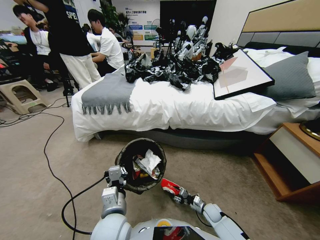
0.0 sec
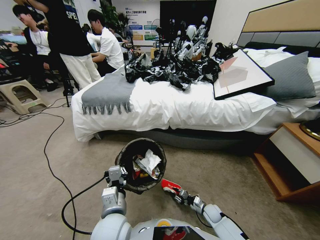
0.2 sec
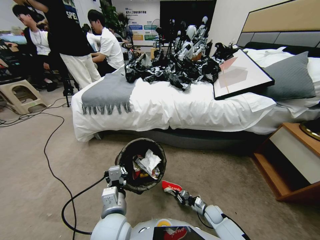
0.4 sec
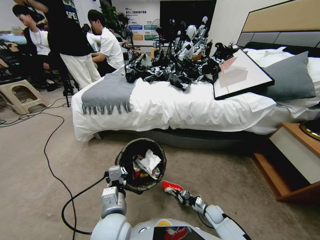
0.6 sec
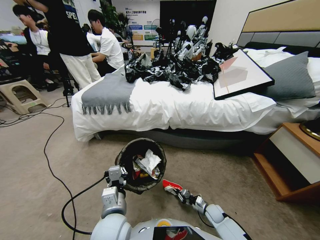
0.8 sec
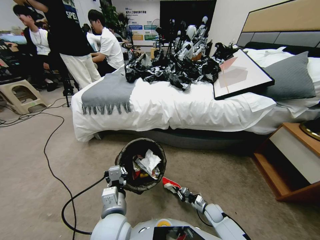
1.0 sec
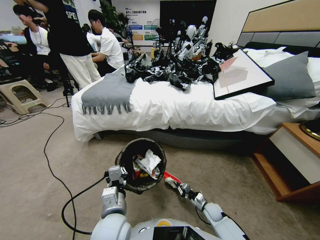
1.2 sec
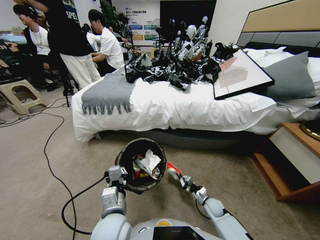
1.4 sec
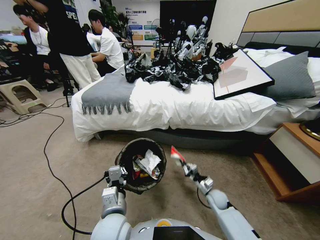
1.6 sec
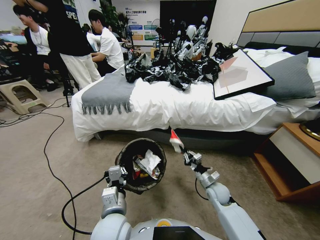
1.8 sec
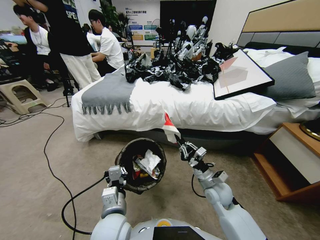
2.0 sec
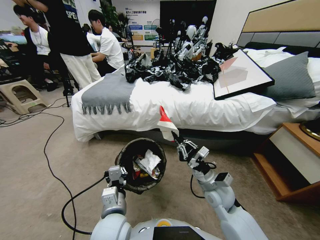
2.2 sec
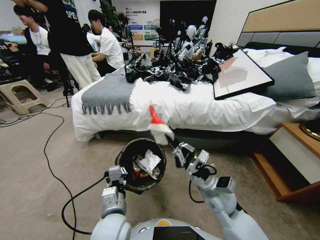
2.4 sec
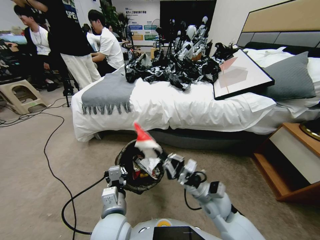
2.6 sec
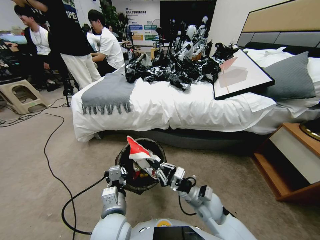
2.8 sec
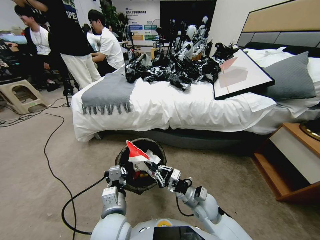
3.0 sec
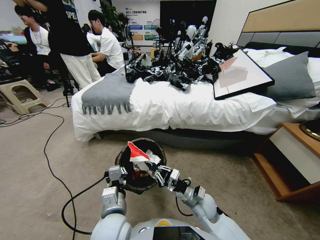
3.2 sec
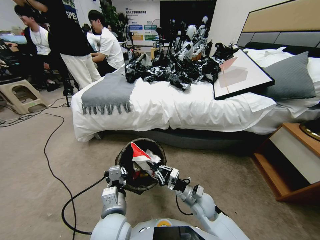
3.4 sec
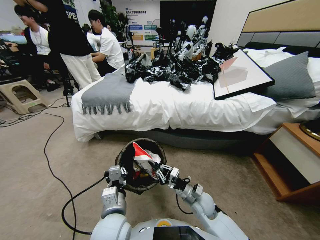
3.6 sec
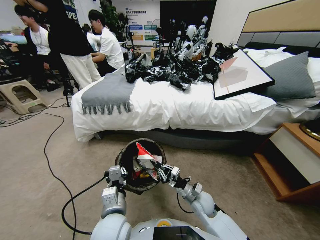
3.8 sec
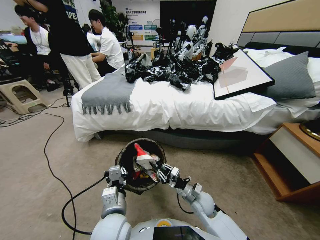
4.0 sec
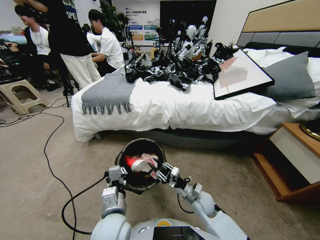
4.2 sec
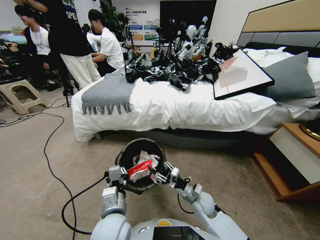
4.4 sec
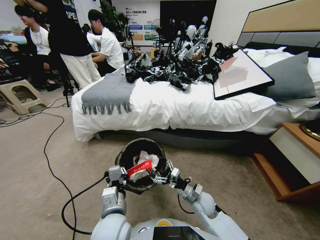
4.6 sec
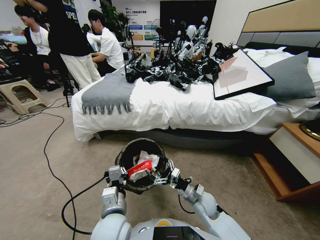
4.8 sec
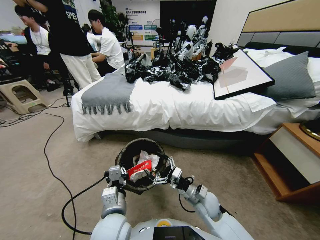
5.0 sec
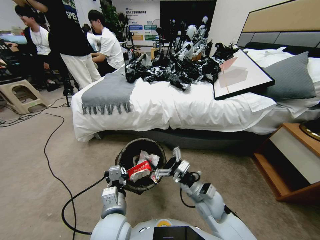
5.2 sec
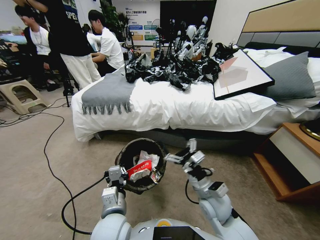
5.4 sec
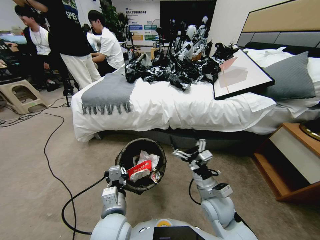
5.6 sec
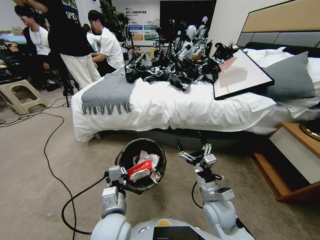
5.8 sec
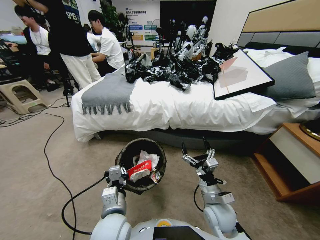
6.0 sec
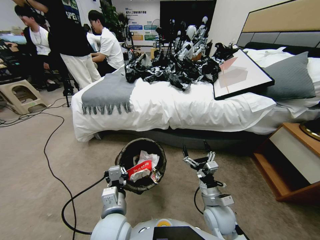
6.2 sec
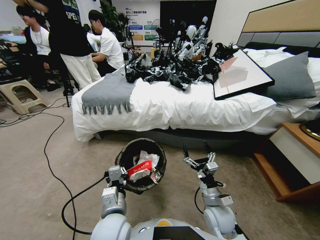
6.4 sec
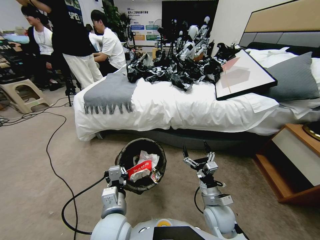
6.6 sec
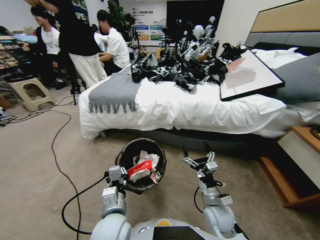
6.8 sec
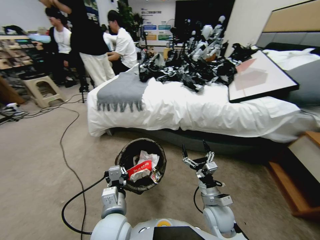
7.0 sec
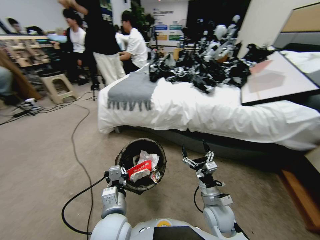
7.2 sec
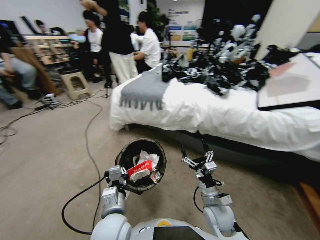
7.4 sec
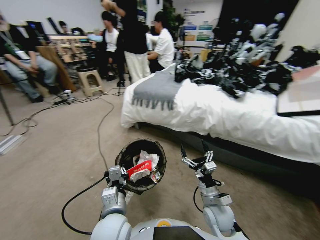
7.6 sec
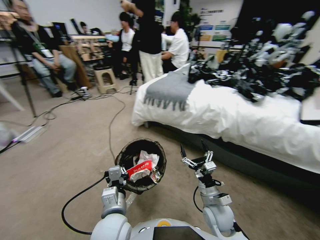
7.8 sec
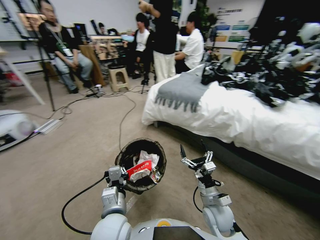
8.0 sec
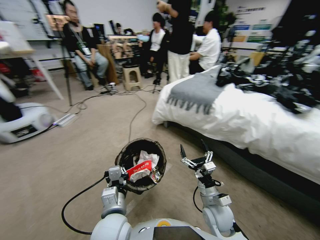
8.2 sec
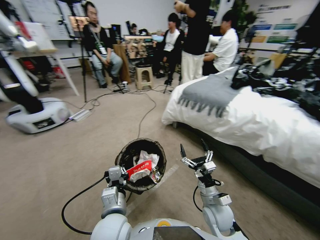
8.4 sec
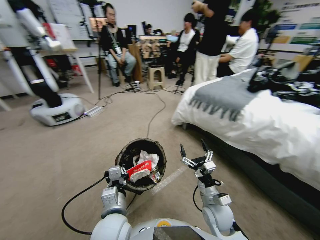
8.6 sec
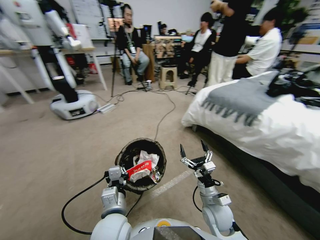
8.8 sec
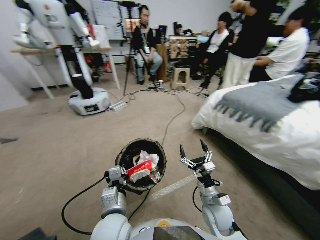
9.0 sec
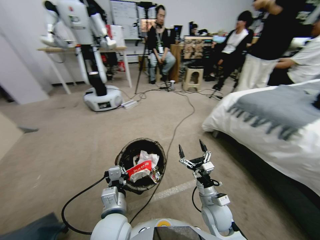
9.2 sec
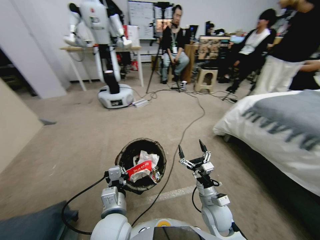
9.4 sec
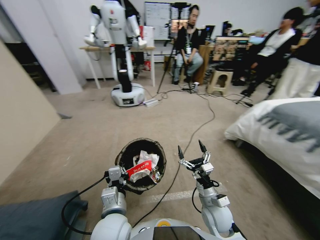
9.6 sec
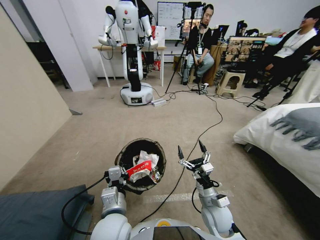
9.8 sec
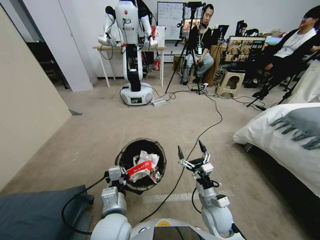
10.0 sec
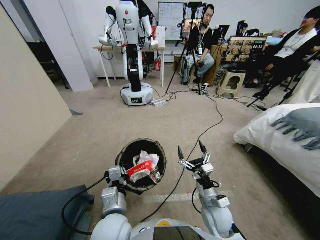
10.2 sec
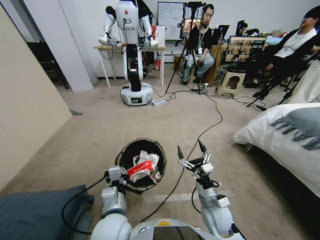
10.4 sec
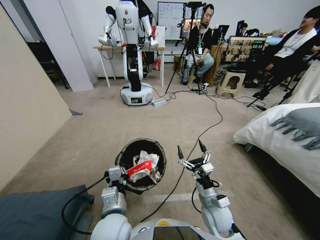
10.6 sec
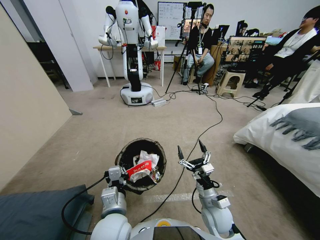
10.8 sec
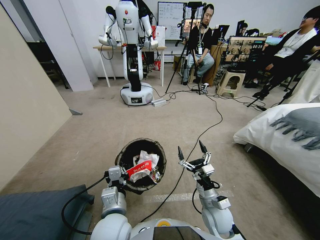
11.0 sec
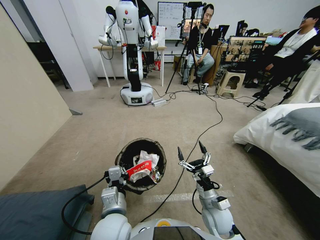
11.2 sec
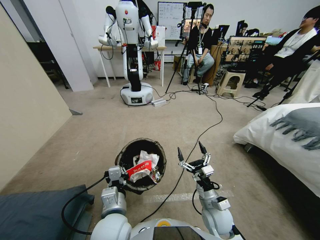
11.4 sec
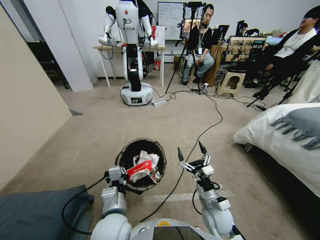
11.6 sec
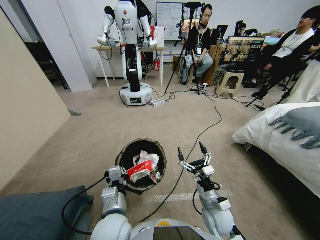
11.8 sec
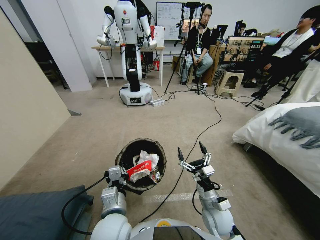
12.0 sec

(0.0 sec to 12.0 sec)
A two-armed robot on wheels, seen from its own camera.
Task of the whole recording: Pick up the trash bin, then pick up the garbage from the floor and place it into the trash bin.
0.0 sec - 1.6 sec: The right gripper travels upward by roughly 15 cm.
1.6 sec - 3.0 sec: The right gripper moves to the left, backward and upward, roughly 15 cm.
3.0 sec - 4.4 sec: The right gripper opens.
4.4 sec - 6.0 sec: The right gripper travels upward by some 10 cm.
10.4 sec - 12.0 sec: Both grippers stay put.

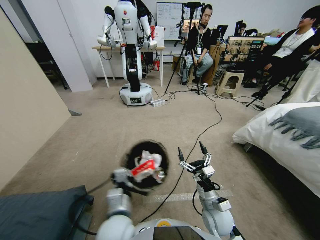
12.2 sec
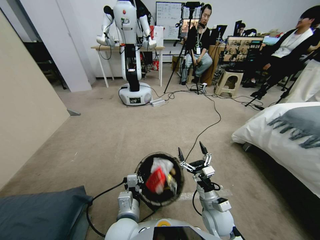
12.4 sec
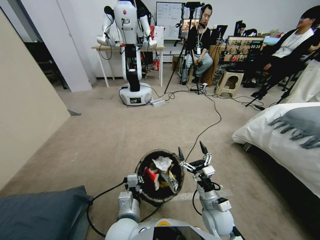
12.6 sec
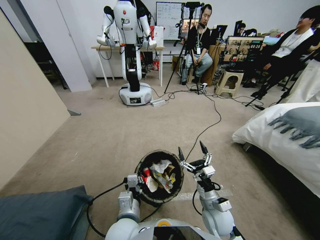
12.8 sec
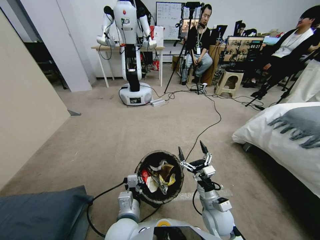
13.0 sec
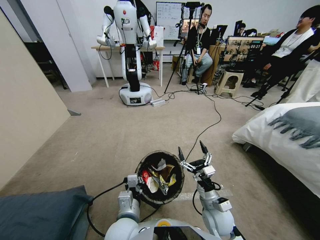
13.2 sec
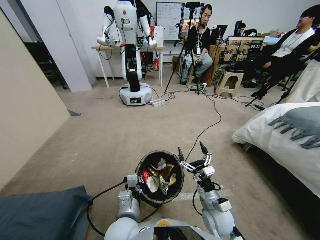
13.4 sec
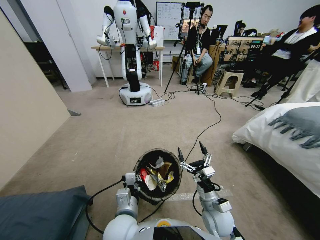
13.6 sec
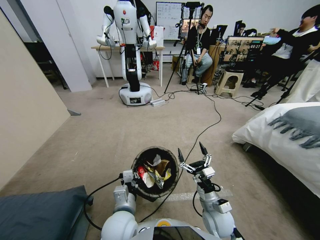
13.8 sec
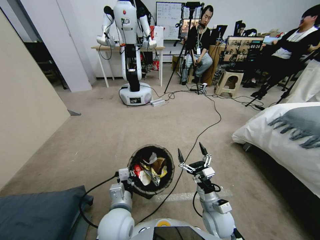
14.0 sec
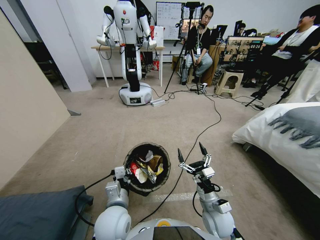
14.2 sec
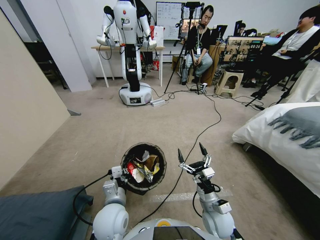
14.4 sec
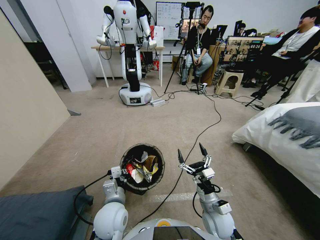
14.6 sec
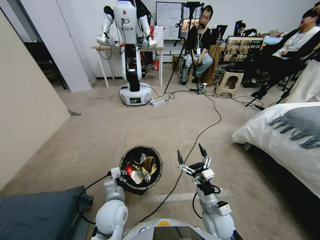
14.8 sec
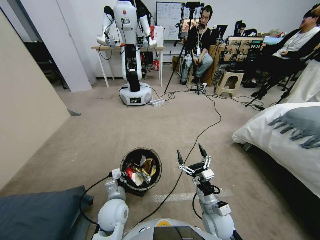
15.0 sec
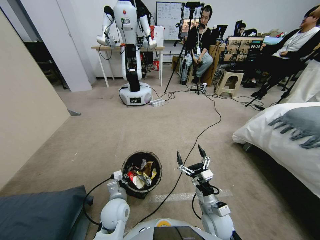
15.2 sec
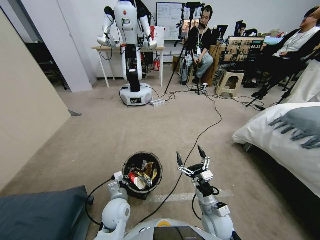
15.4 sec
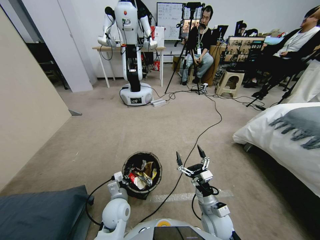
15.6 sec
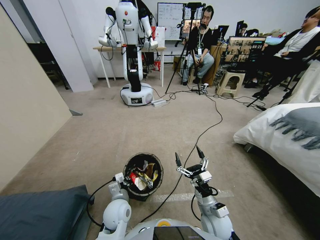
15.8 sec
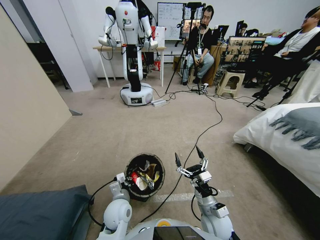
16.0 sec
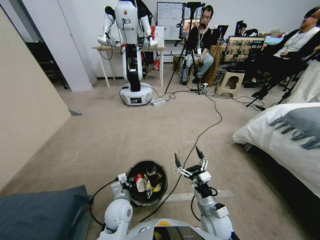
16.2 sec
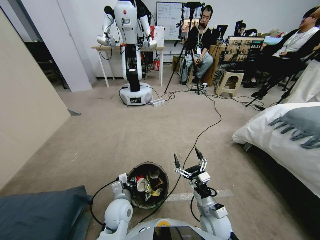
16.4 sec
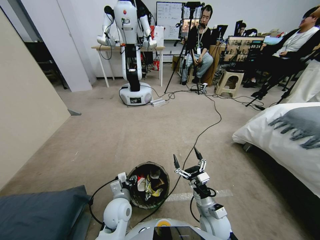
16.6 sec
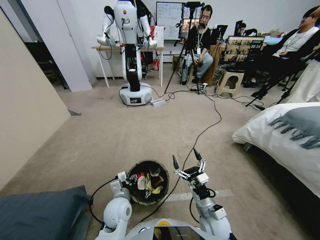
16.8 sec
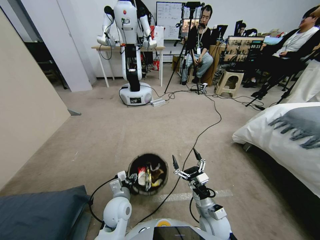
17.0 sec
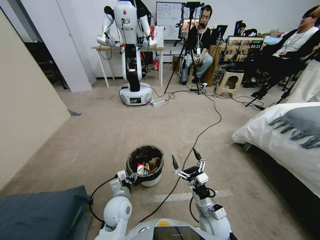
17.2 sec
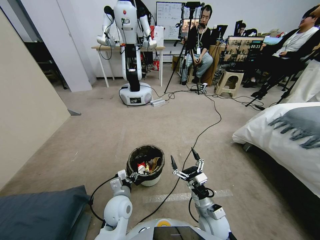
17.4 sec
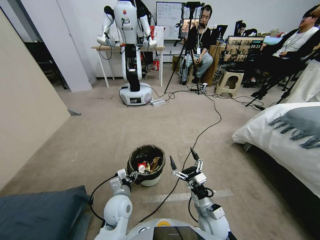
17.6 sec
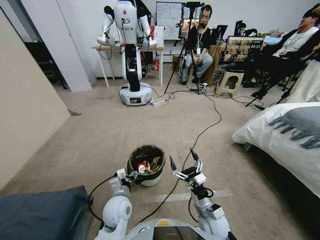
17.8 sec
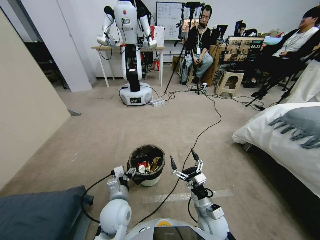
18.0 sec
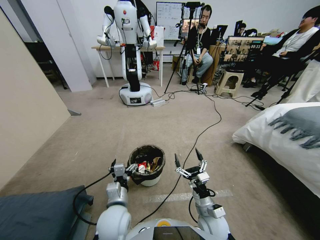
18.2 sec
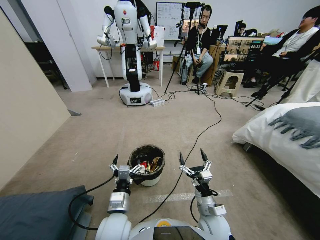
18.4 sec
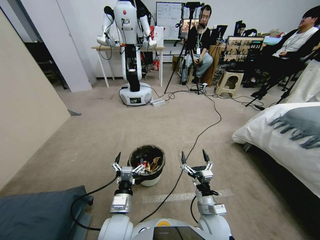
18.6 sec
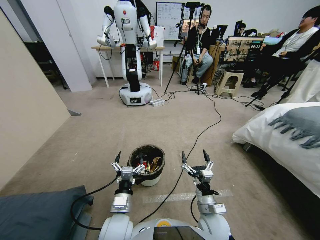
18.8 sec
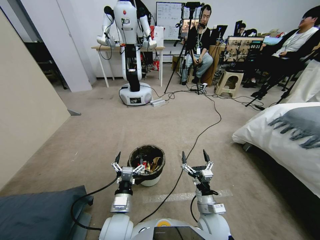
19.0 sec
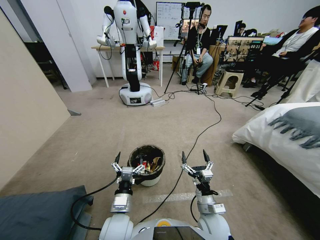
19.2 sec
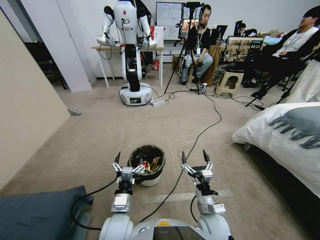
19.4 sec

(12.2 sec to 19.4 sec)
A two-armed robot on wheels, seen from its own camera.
Task of the whole recording: Pick up the trash bin, then pick up the garbage from the floor and place it into the trash bin.
12.2 sec - 13.6 sec: The grippers move only a little.
13.6 sec - 15.0 sec: The left gripper is displaced downward, forward and to the left by approximately 10 cm.
15.0 sec - 16.6 sec: The left gripper opens.
16.6 sec - 18.0 sec: The left gripper heads upward, covering roughly 5 cm.

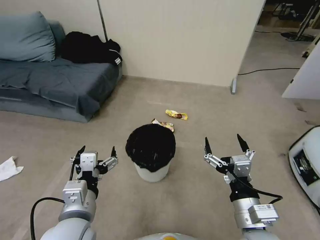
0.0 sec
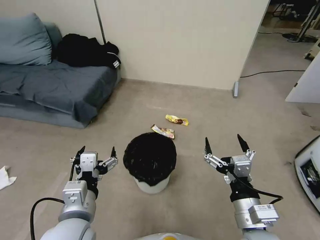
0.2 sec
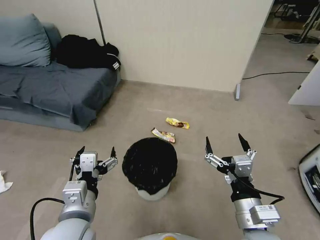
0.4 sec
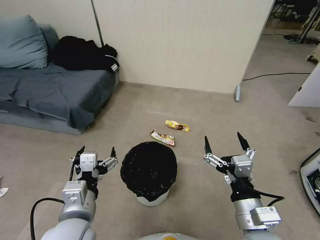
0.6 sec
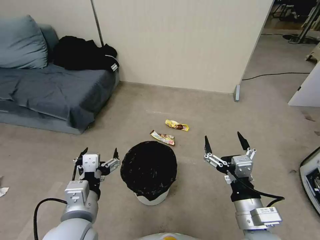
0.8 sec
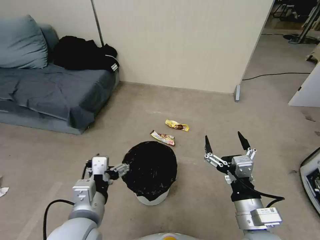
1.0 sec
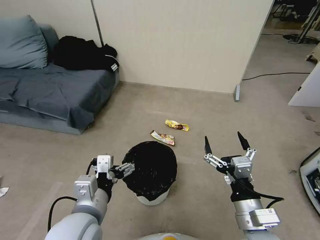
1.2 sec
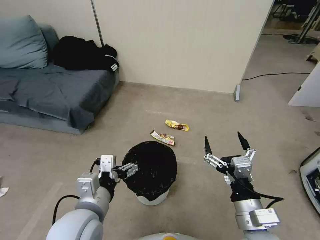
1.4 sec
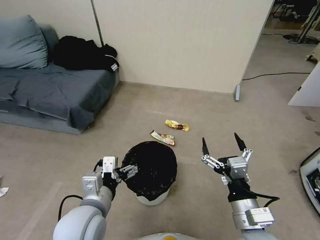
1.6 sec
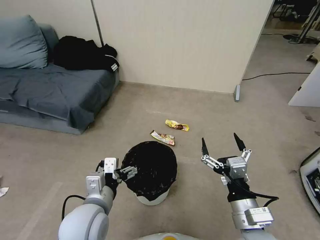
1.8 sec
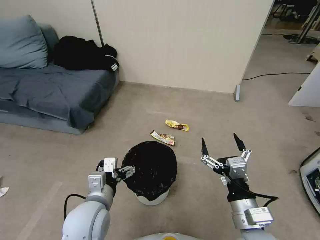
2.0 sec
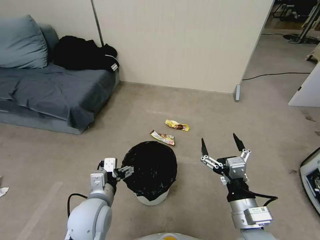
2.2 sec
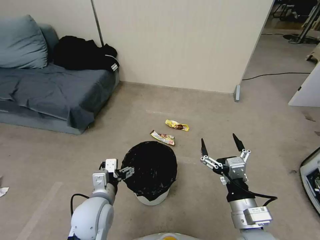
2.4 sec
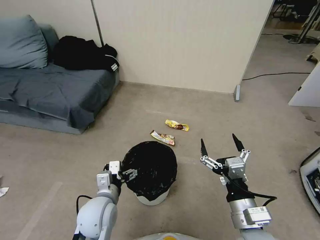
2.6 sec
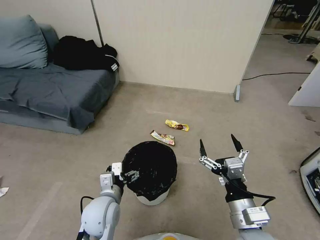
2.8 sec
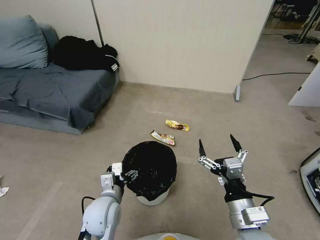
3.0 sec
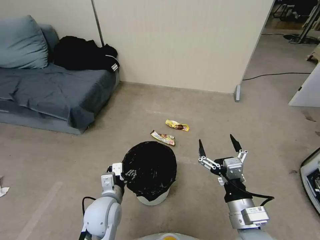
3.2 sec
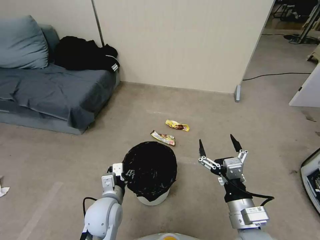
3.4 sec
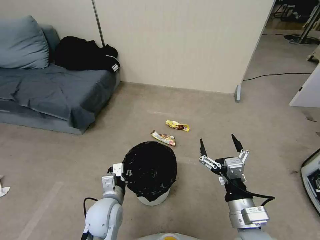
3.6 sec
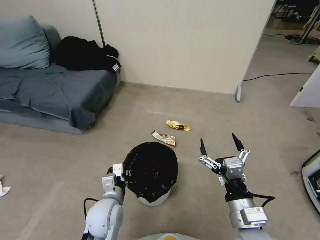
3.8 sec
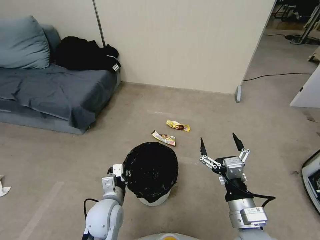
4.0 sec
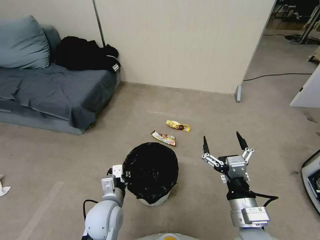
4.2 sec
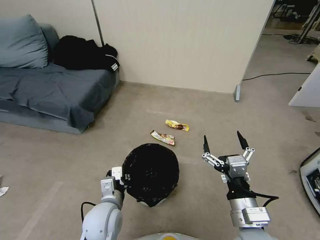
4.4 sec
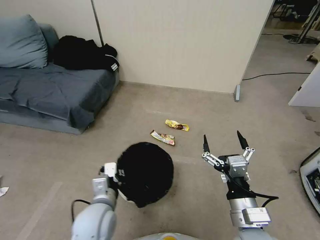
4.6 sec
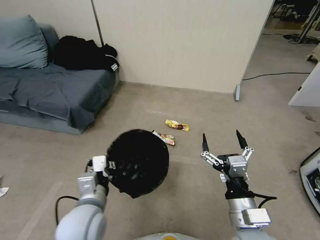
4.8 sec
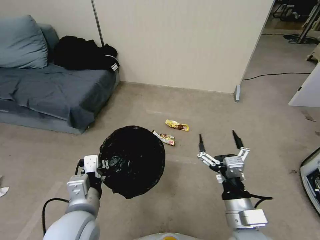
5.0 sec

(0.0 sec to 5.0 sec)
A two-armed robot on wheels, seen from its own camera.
Task of the whole recording: Pick up the trash bin, then pick up the garbage from the floor and place it into the trash bin.
1.6 sec - 3.4 sec: The left gripper is displaced downward by roughly 10 cm, and closes.
3.4 sec - 5.0 sec: The left gripper shifts some 15 cm upward and backward, and closes up.
